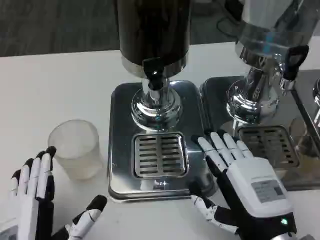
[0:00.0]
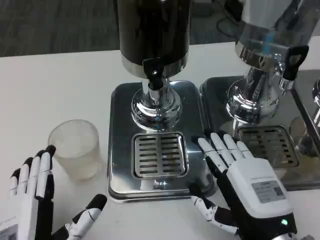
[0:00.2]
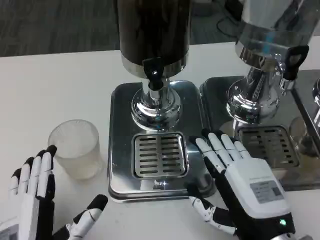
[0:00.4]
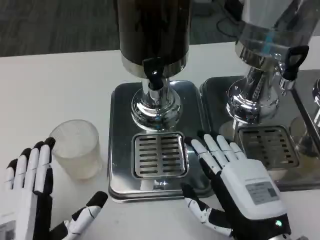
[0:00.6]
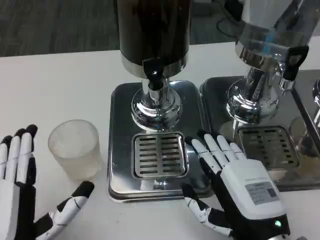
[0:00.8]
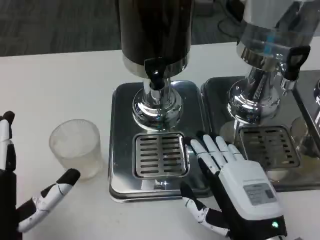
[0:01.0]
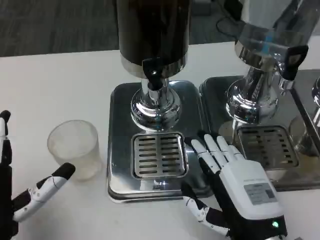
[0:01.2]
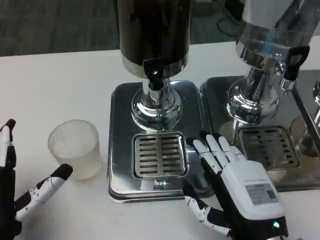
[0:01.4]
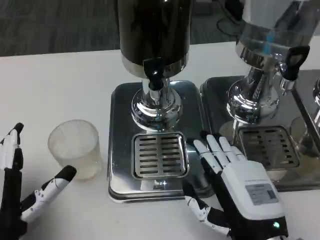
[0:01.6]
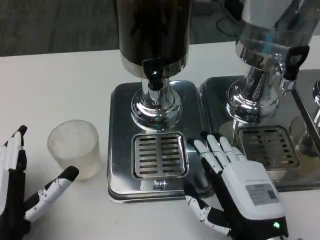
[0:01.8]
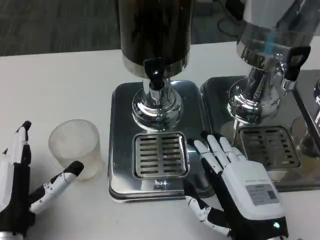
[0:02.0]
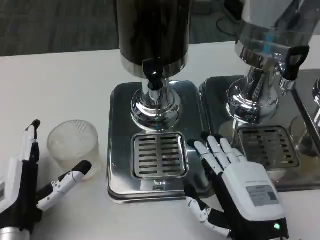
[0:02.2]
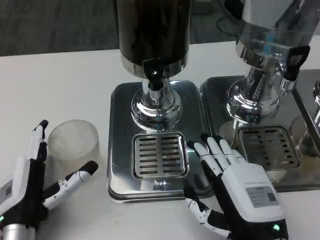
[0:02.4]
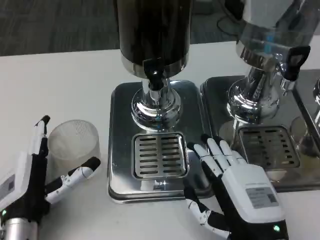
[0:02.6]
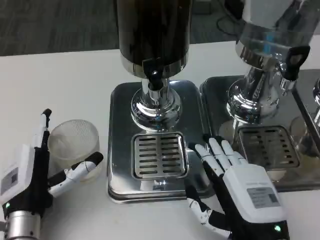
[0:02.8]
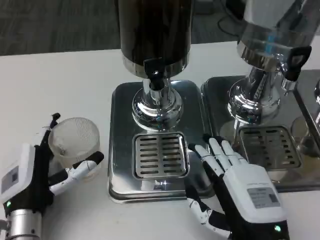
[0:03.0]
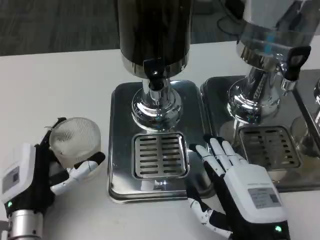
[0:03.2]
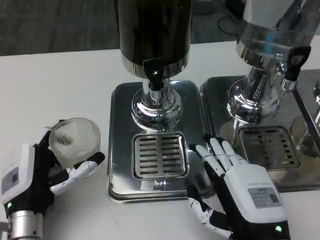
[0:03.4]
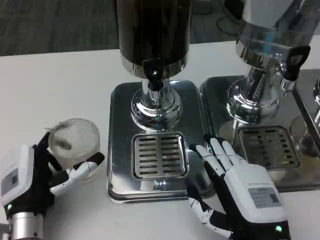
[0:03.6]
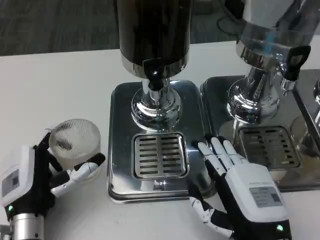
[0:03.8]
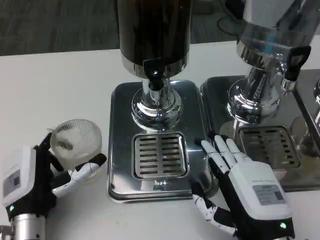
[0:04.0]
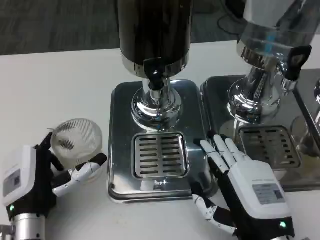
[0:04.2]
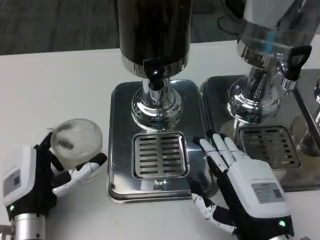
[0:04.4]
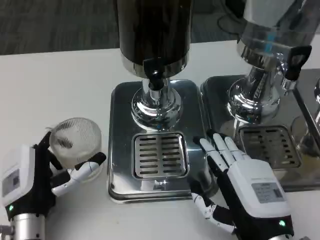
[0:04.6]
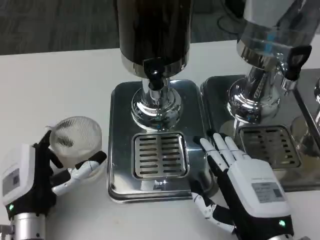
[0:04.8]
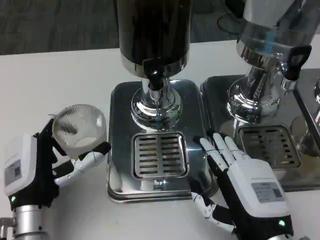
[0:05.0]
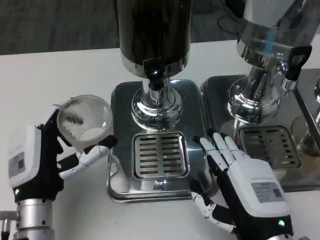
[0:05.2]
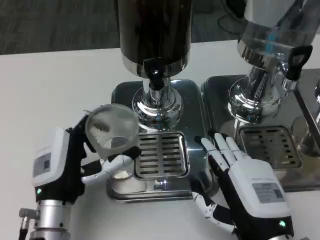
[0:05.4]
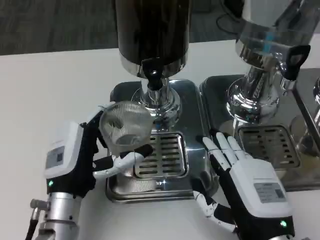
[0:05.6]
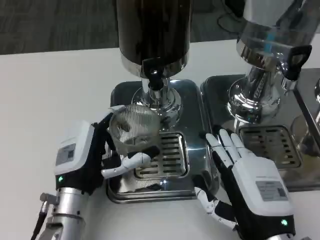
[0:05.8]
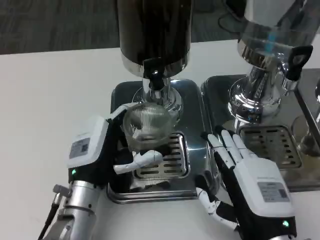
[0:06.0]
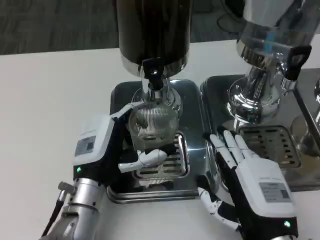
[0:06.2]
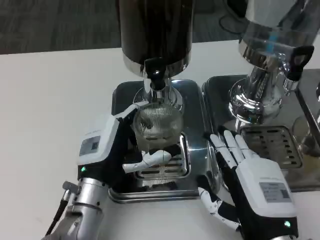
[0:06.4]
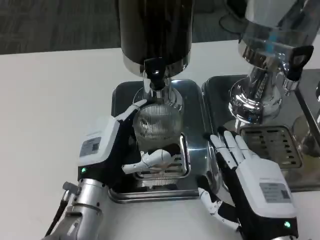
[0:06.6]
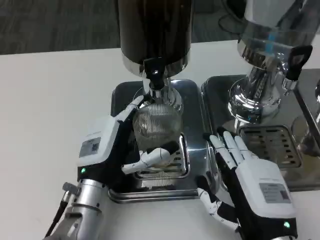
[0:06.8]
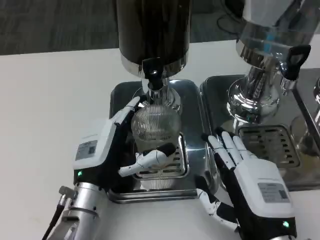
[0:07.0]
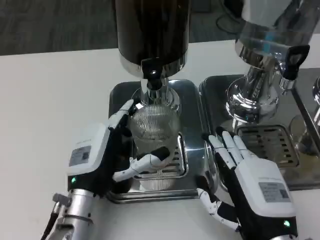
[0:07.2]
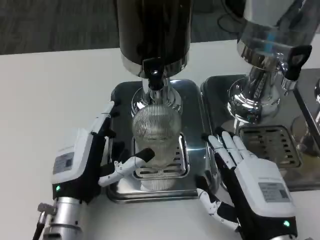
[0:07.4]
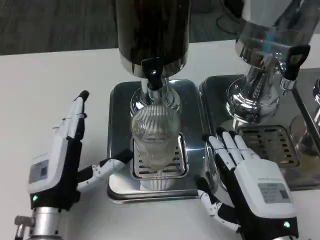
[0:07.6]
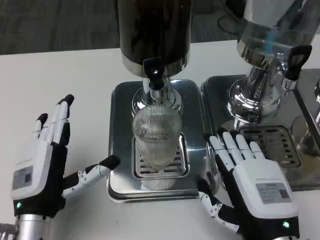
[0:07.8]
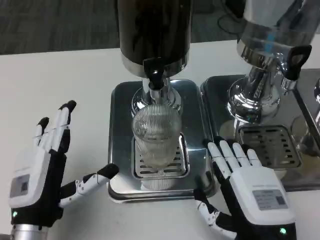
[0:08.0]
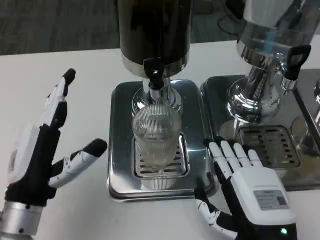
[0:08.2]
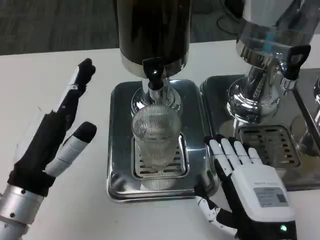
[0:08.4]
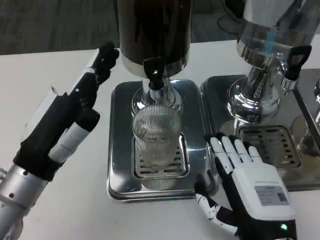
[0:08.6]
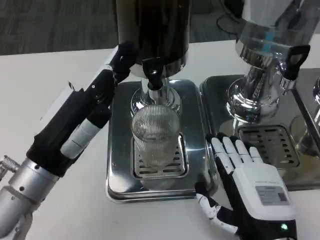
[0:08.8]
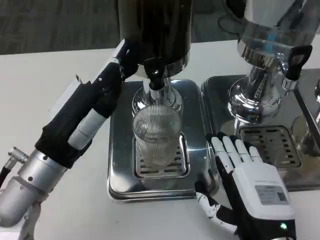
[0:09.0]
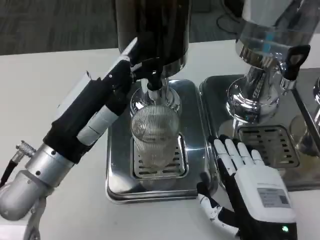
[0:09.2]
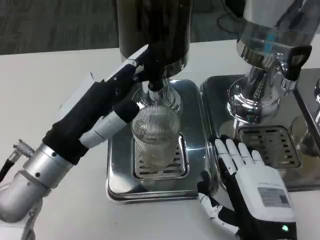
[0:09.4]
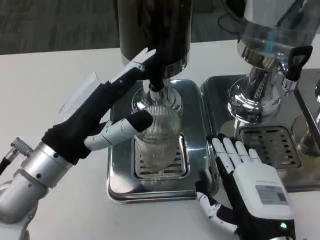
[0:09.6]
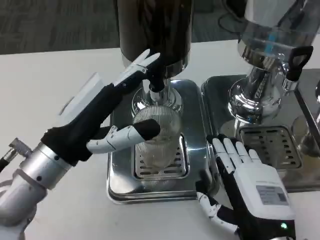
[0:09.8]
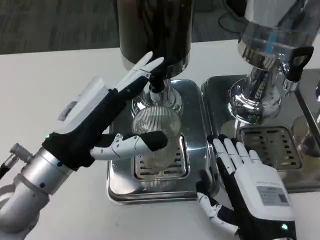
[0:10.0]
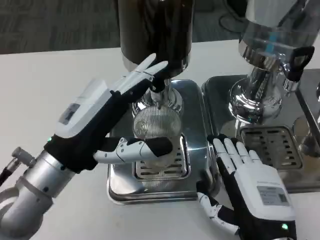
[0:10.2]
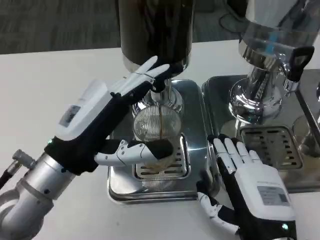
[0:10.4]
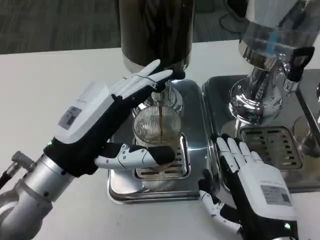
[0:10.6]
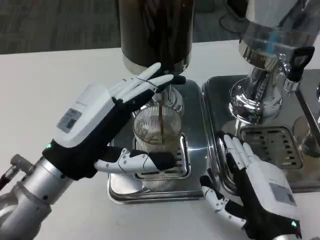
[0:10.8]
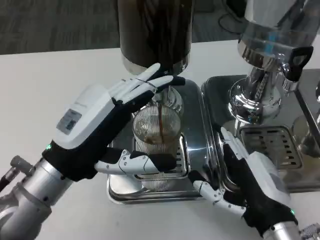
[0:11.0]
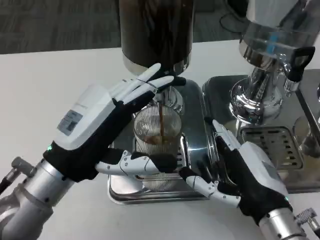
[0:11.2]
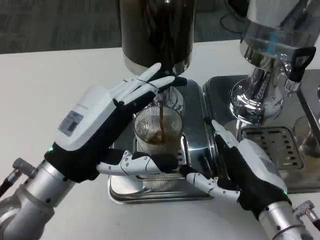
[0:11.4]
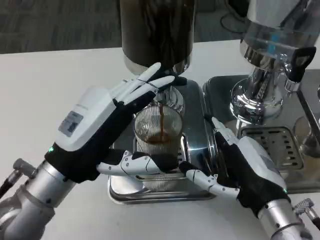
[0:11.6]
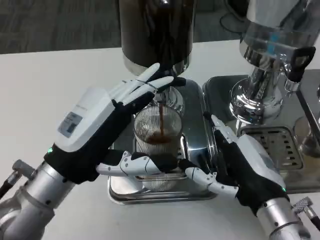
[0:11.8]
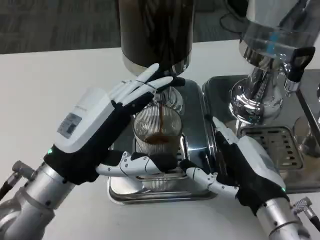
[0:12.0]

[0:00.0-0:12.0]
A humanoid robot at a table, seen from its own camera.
Task of the whole recording: Grasp the cup under the faucet to collect the drink, then remove the cup.
0.0 to 1.6 s: The left hand shifts roughly 5 cm forward.
1.6 to 3.0 s: The left hand travels forward by about 5 cm.
3.0 to 4.4 s: Neither hand changes place.
4.4 to 6.0 s: The left hand moves to the right, some 5 cm.
6.0 to 7.6 s: The left hand ends up about 5 cm from where it was.
7.6 to 9.0 s: The left hand heads upward, covering roughly 10 cm.
10.4 to 12.0 s: The right hand goes approximately 5 cm forward.

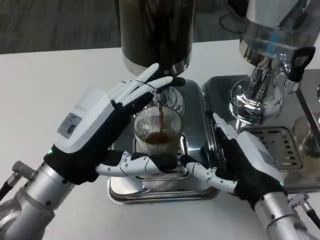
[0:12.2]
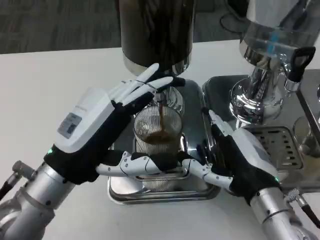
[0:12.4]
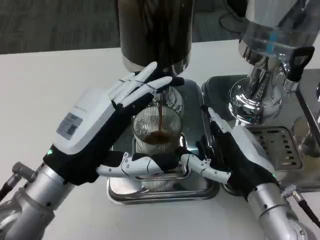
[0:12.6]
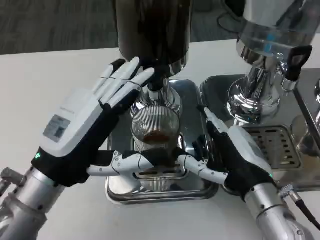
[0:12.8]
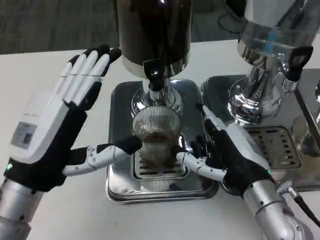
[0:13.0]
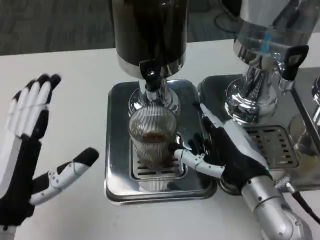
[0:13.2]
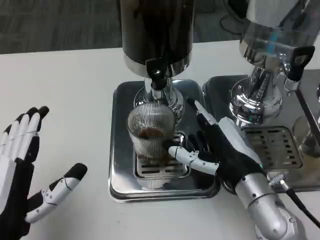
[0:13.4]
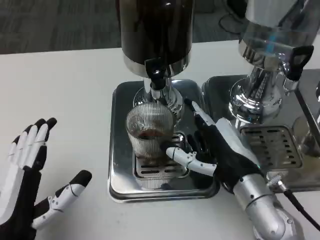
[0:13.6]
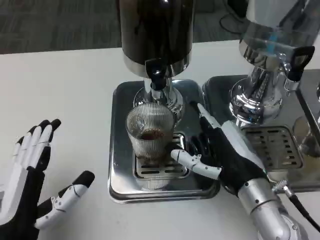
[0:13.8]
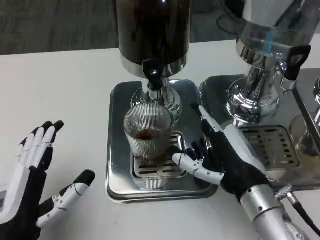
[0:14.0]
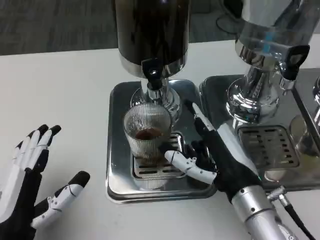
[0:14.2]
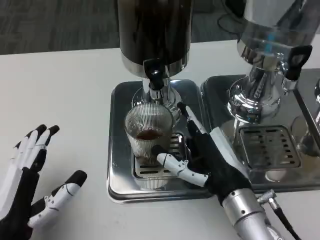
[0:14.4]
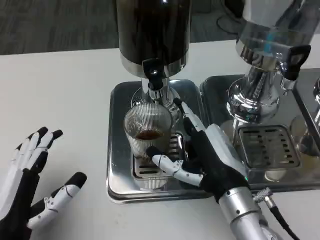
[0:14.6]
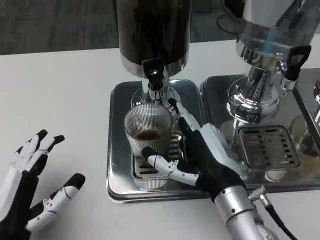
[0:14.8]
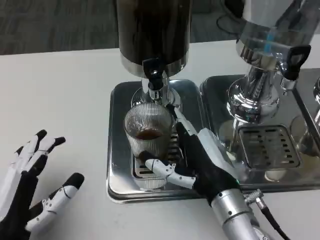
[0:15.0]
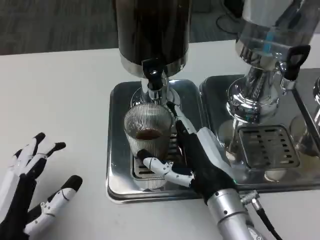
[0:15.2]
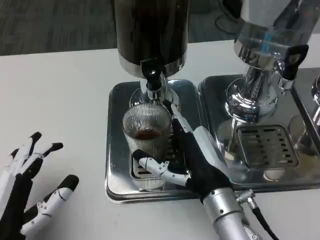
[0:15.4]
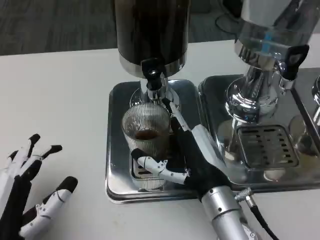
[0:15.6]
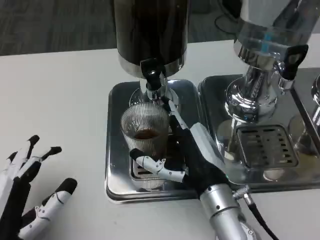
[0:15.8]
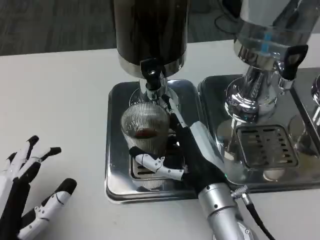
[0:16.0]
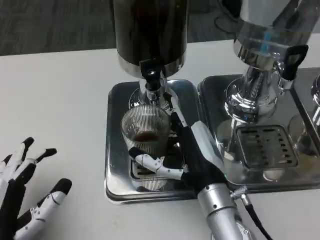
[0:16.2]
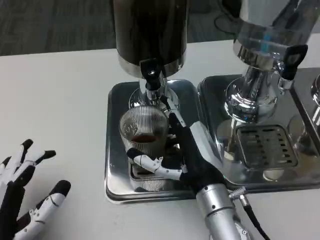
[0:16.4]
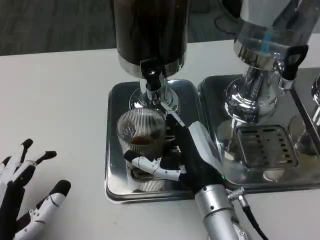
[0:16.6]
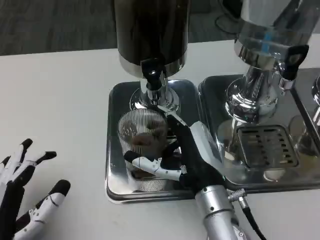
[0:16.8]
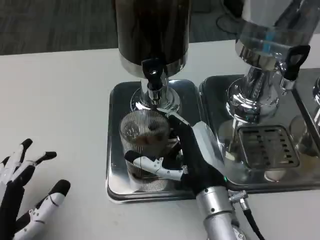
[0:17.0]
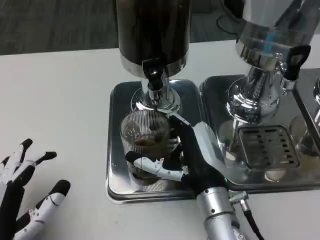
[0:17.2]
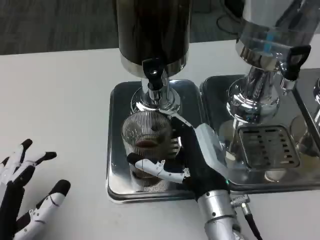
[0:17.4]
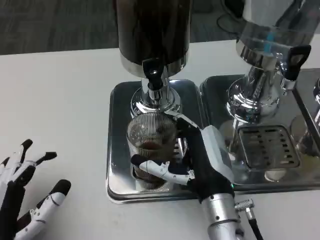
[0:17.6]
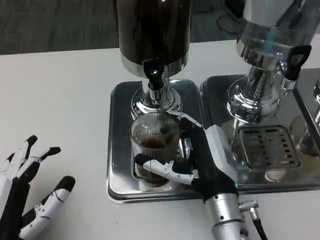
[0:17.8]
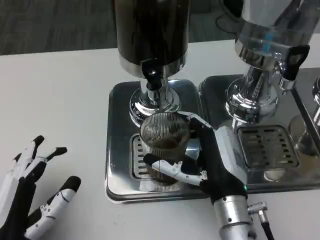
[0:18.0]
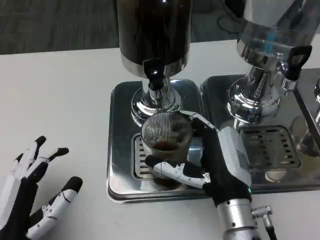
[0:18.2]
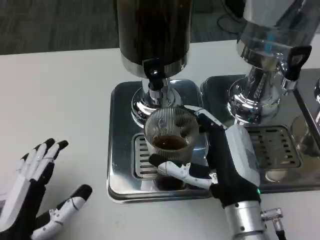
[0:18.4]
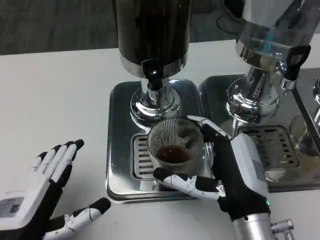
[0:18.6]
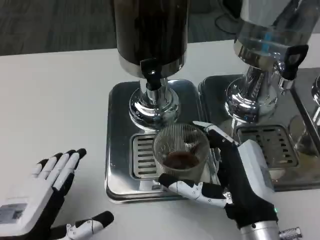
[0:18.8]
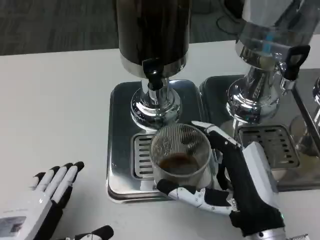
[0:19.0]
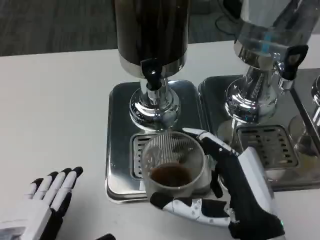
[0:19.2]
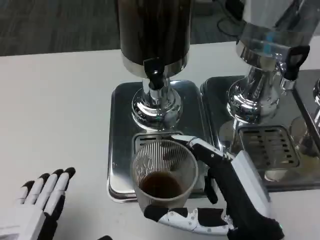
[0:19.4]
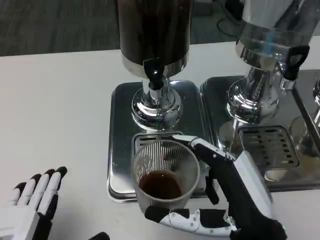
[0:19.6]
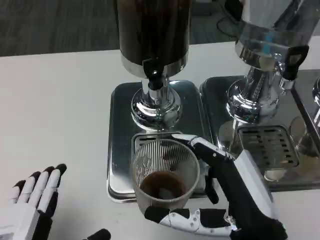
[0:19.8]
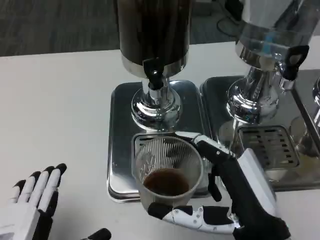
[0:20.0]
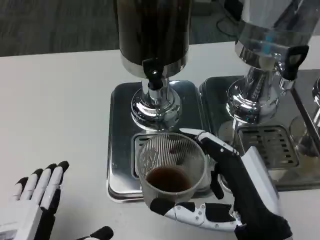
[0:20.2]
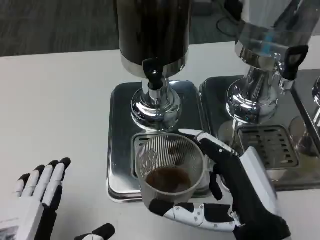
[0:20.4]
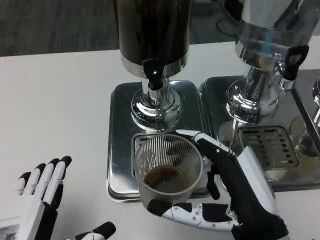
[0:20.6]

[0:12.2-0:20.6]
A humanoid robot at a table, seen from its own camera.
Task of the whole recording: Grasp the cup under the faucet to collect the drink, then remove the cup.
12.2 to 13.6 s: The left hand is displaced backward and downward by roughly 10 cm.
17.8 to 19.2 s: The right hand shifts about 10 cm backward. The left hand shifts by approximately 5 cm.
19.2 to 20.6 s: The hands make only small movements.

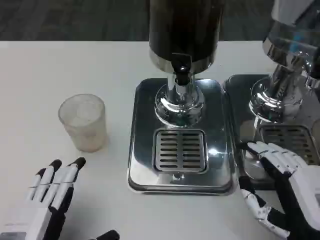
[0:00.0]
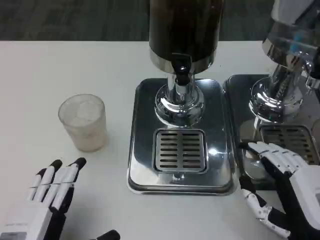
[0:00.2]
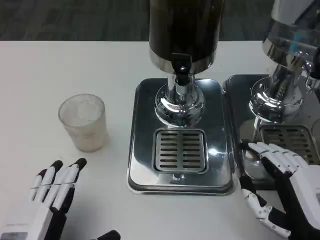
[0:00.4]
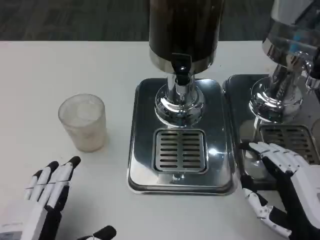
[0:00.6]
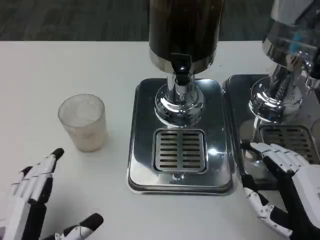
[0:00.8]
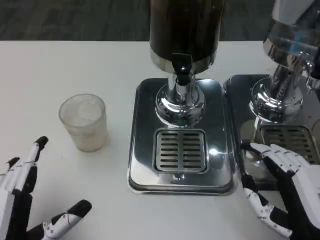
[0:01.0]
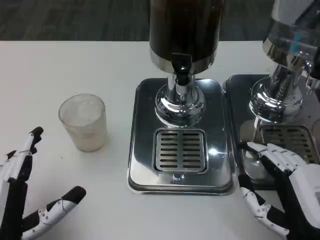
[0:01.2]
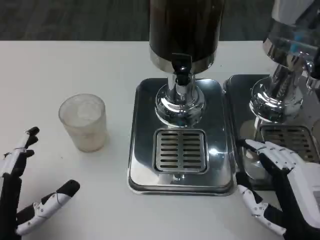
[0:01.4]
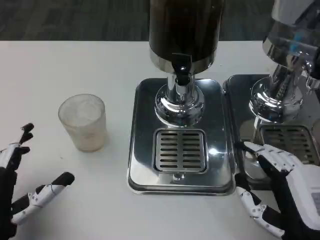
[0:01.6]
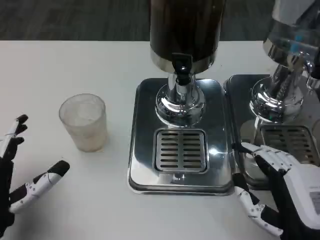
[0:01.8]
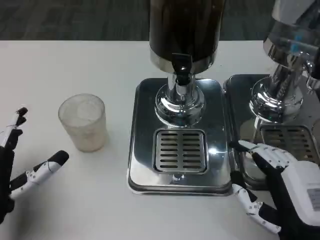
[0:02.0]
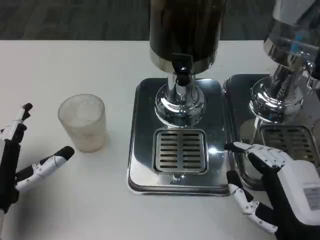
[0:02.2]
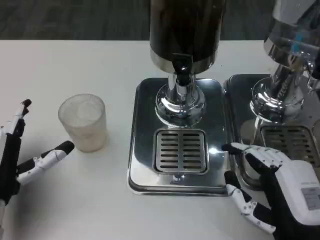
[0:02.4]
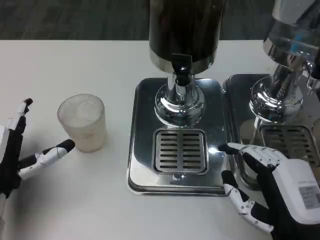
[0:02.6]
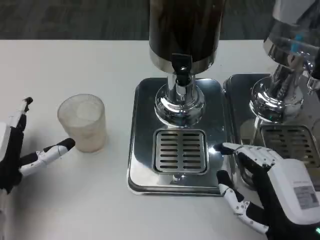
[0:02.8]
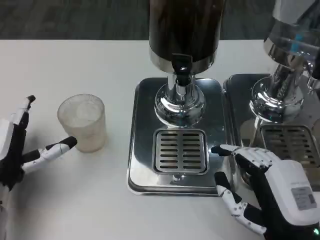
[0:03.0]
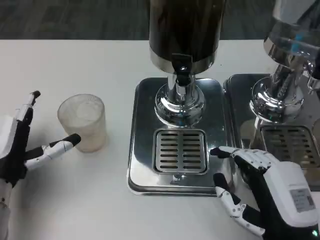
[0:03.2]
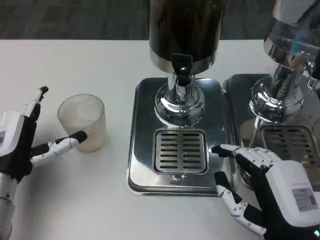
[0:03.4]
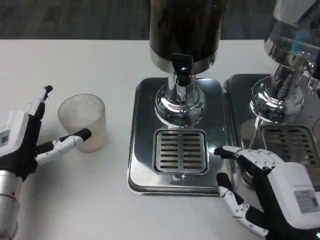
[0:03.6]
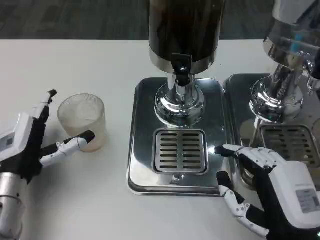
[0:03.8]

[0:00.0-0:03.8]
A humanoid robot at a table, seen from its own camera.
Task of the whole recording: Grasp the cup under the faucet to collect the drink, then remove the cup.
0.0 to 1.2 s: The hands move only a little.
1.2 to 2.6 s: The left hand is displaced forward by approximately 10 cm.
2.6 to 3.8 s: There are only small adjustments of the hands.
